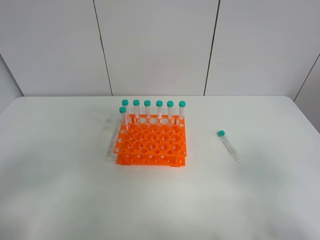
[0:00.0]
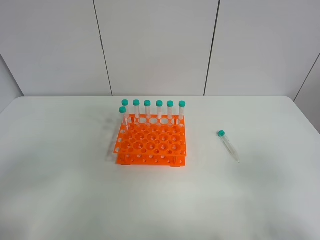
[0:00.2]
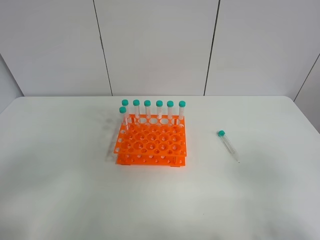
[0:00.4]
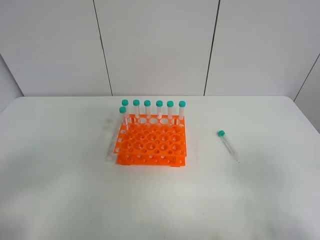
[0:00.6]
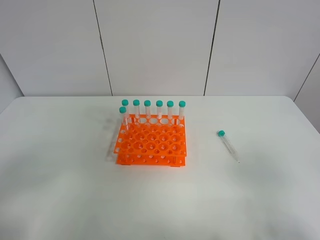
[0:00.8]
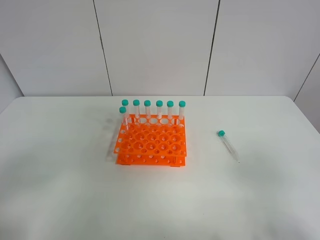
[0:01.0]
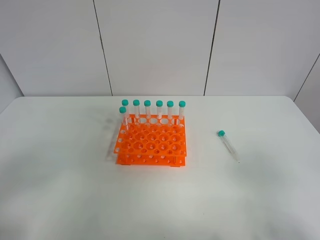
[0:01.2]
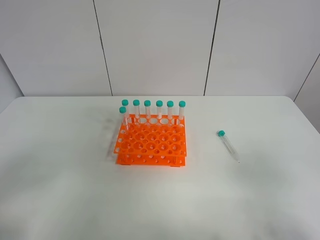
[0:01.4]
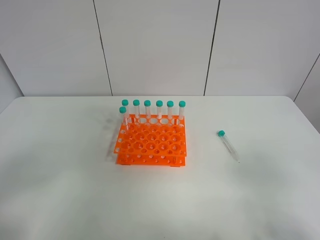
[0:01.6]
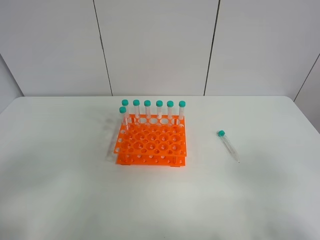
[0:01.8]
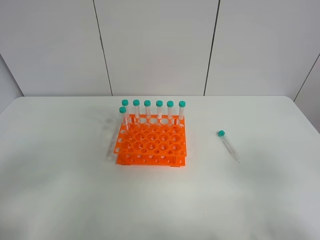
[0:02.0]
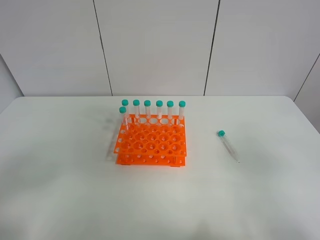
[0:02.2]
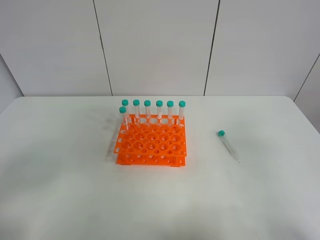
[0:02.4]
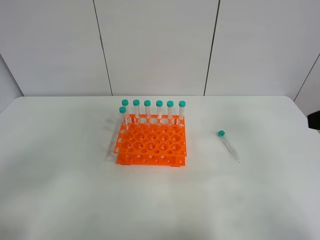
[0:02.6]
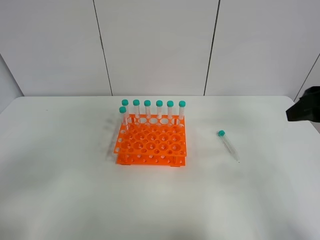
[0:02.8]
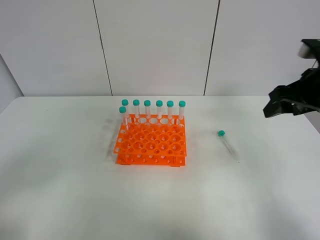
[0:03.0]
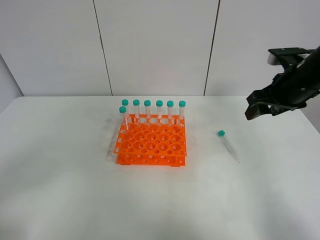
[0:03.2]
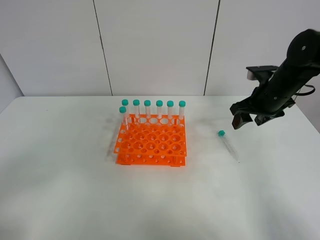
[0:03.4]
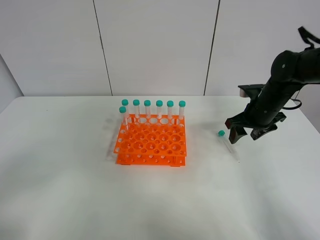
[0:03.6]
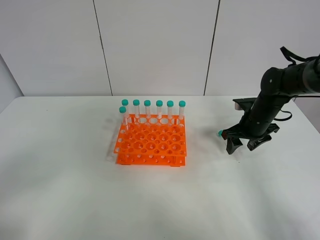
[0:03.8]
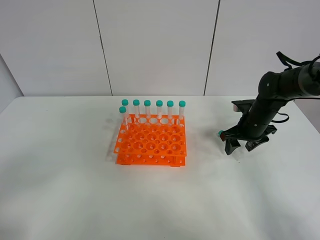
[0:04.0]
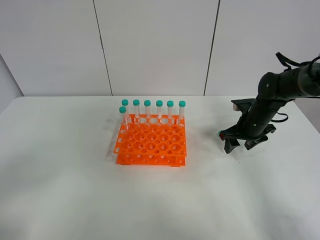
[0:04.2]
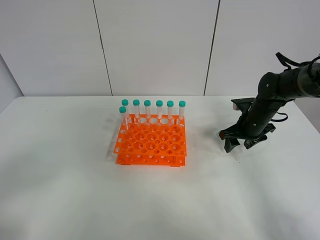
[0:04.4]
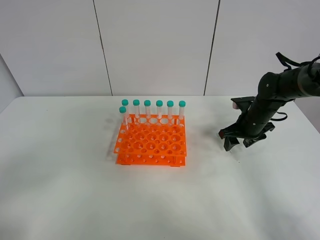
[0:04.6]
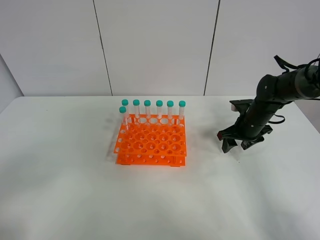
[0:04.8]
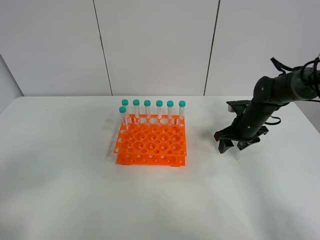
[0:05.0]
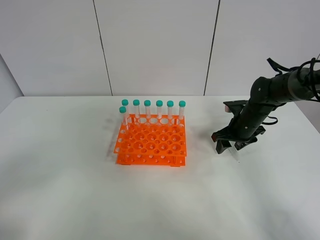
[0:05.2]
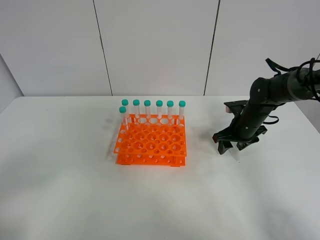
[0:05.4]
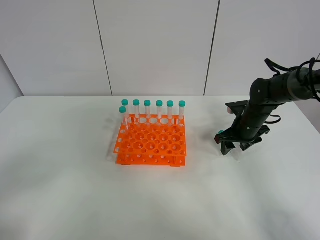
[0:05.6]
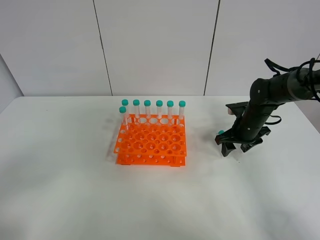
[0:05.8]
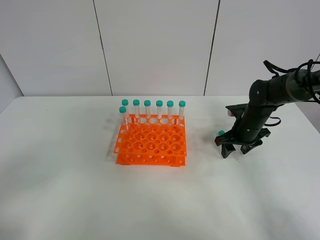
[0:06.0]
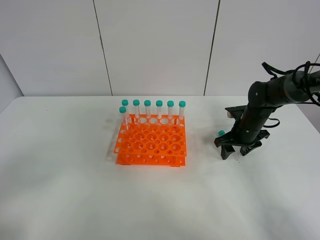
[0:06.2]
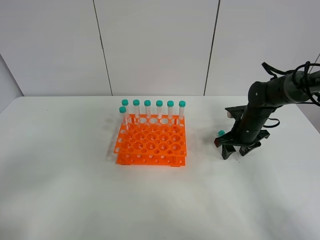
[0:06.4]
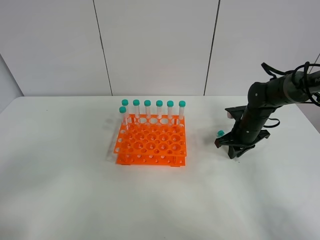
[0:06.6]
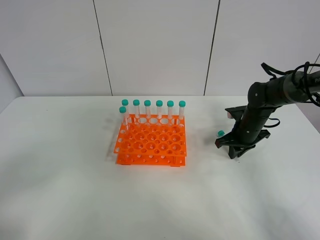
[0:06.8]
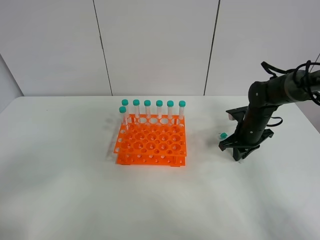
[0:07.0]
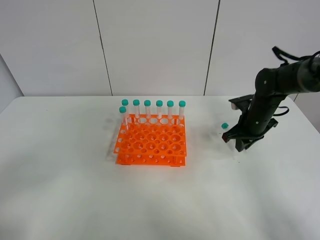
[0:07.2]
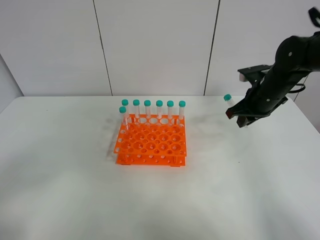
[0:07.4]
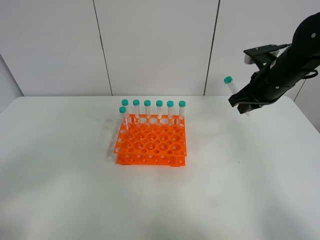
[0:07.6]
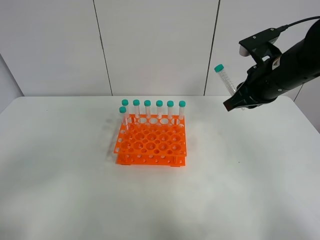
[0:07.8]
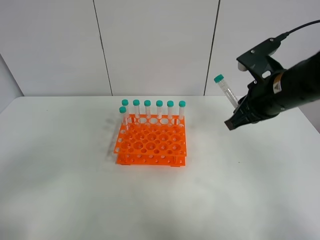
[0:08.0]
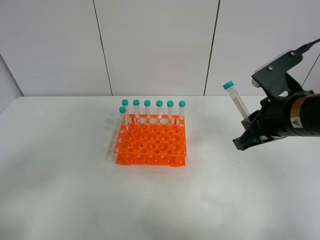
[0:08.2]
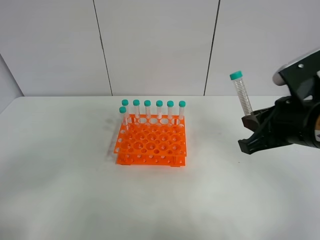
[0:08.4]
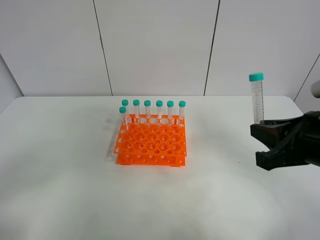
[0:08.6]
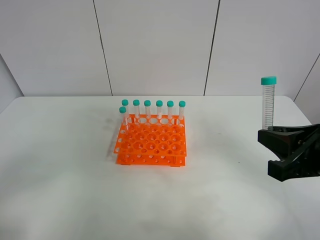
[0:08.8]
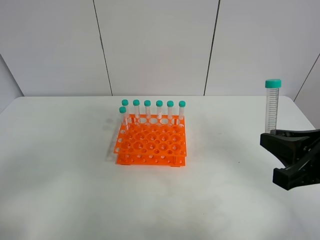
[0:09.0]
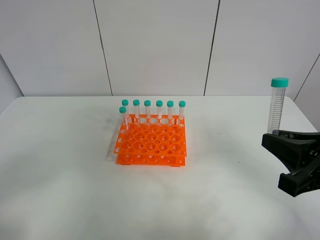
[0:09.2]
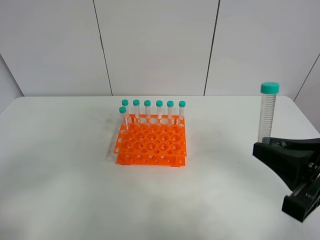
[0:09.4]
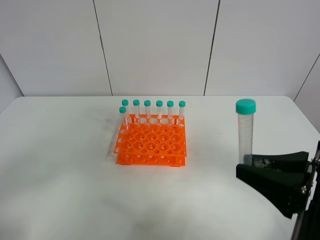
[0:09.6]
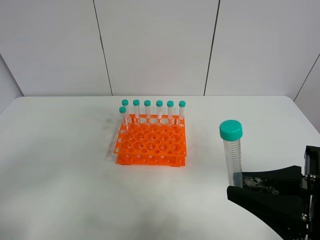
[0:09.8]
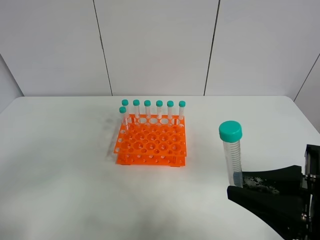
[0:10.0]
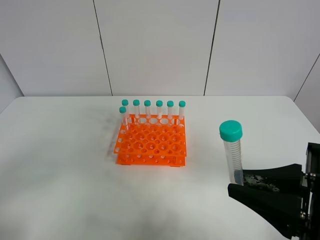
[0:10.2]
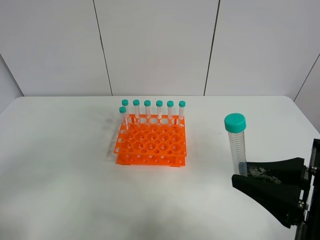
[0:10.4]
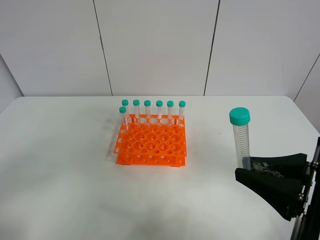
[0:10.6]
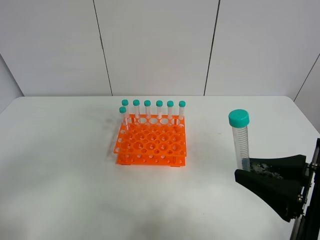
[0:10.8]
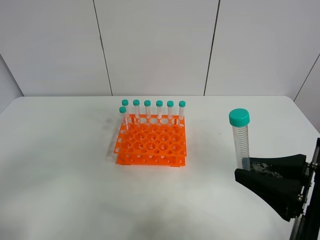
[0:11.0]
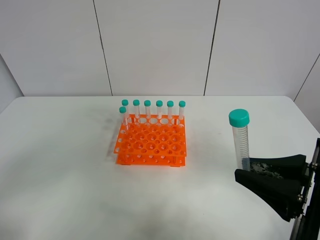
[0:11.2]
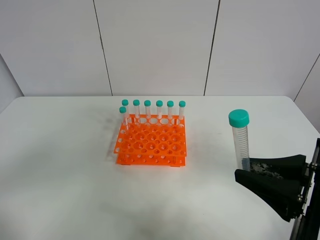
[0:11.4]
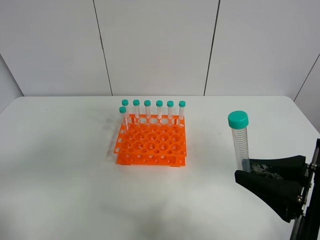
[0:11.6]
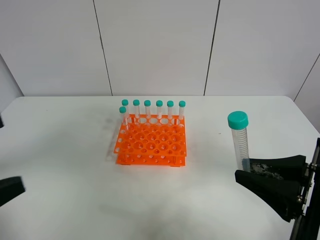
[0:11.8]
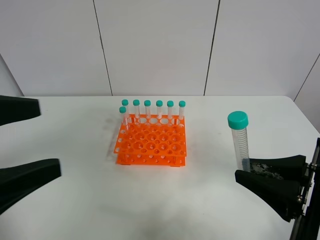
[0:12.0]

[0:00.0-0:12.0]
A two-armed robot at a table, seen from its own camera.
Task of the whole recording: Put the test tube on the table back onto the test tube rack.
Step, 0:00.0 to 0:06.8: Pick up the test tube with the right gripper.
0:00.0 to 0:01.6: Neither gripper changes place.
0:01.6 to 0:03.0: The right gripper shifts about 30 cm forward.
0:03.0 to 0:04.4: The right gripper moves downward and forward, roughly 20 cm.
0:04.4 to 0:06.0: The grippers move only a little.
0:06.0 to 0:07.6: The right gripper is displaced upward by roughly 15 cm, and closes.
0:07.6 to 0:09.0: The right gripper heads backward, covering approximately 25 cm.
0:09.0 to 0:10.4: The right gripper changes place by about 5 cm.
0:10.4 to 0:12.0: The left gripper moves forward, to the right and upward, some 15 cm.

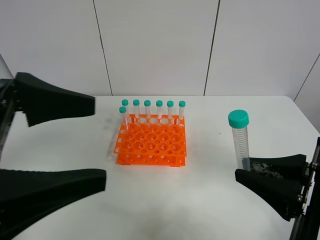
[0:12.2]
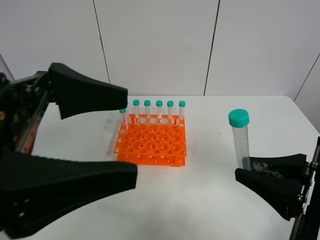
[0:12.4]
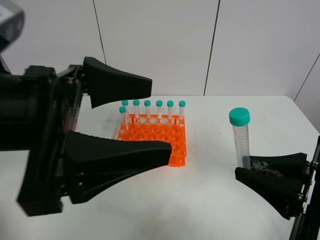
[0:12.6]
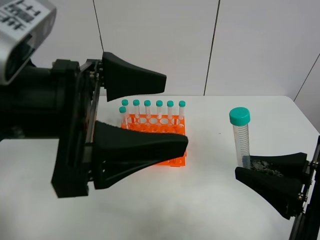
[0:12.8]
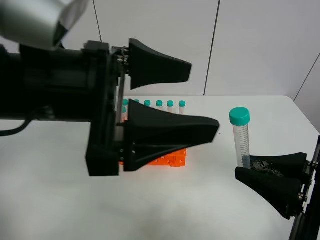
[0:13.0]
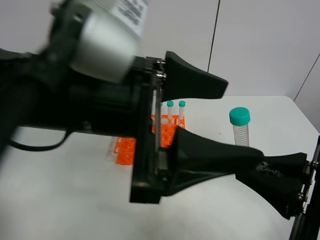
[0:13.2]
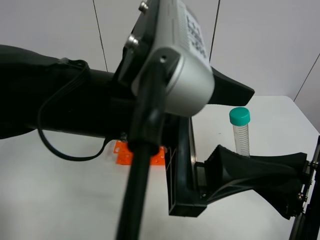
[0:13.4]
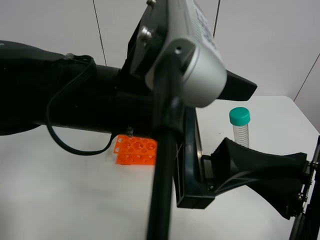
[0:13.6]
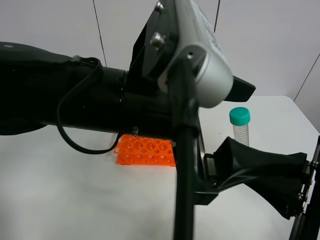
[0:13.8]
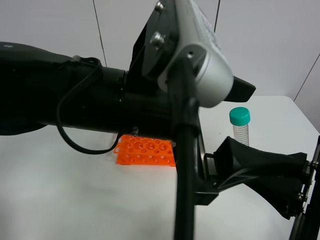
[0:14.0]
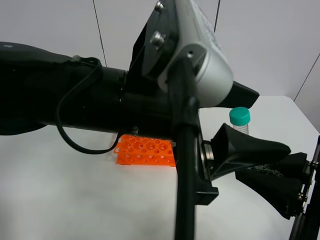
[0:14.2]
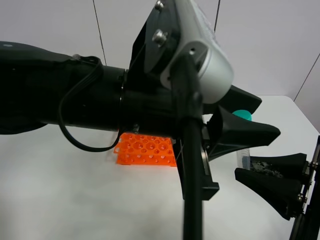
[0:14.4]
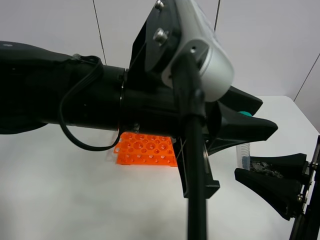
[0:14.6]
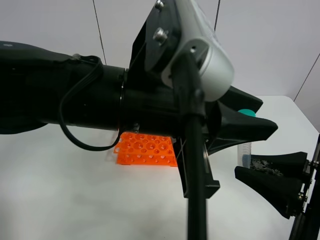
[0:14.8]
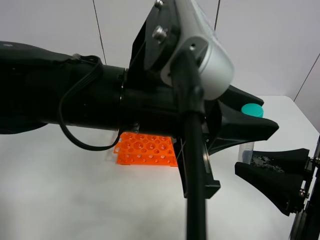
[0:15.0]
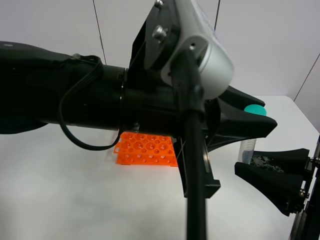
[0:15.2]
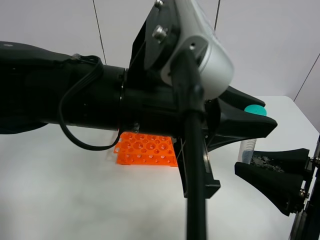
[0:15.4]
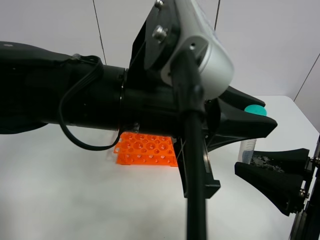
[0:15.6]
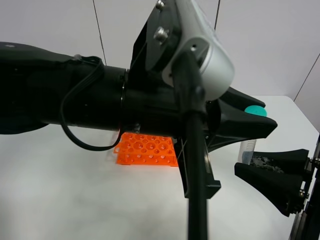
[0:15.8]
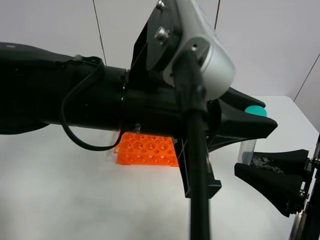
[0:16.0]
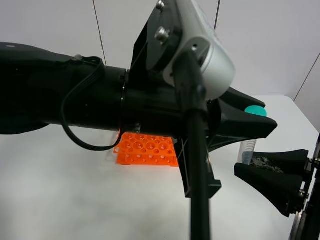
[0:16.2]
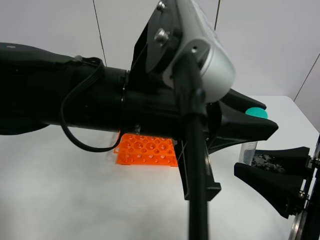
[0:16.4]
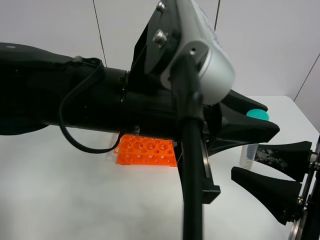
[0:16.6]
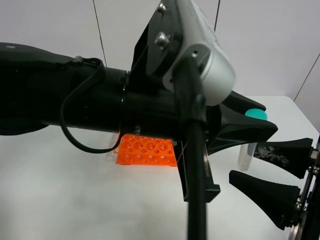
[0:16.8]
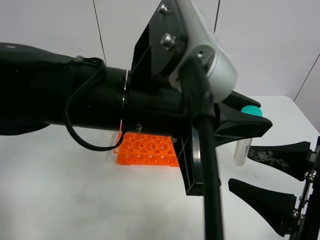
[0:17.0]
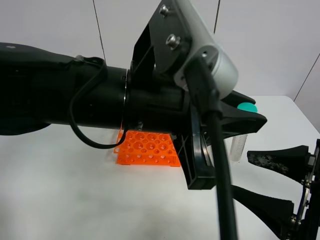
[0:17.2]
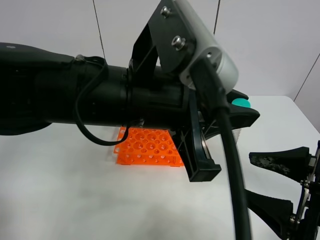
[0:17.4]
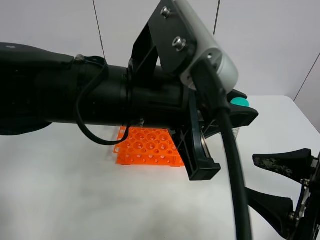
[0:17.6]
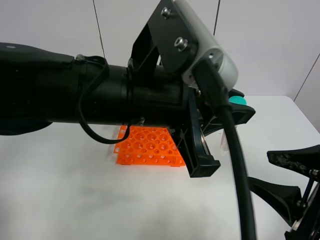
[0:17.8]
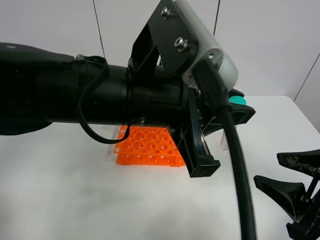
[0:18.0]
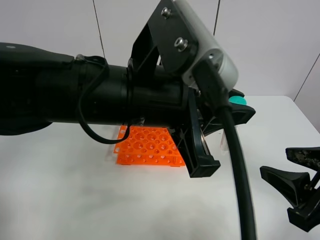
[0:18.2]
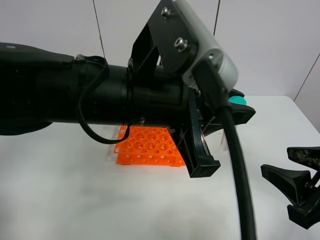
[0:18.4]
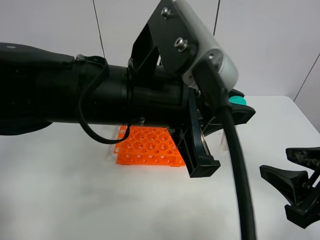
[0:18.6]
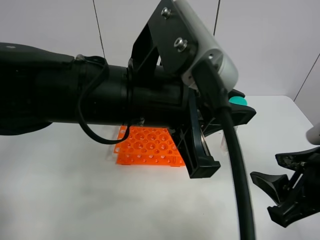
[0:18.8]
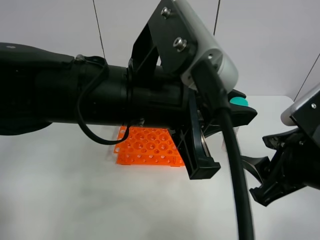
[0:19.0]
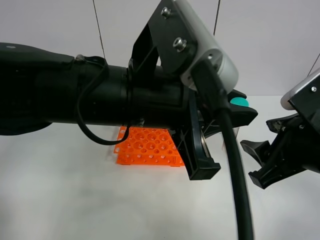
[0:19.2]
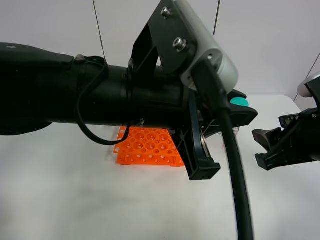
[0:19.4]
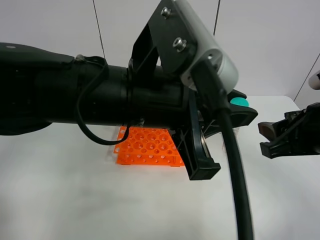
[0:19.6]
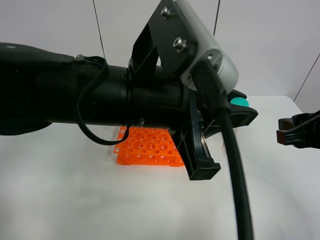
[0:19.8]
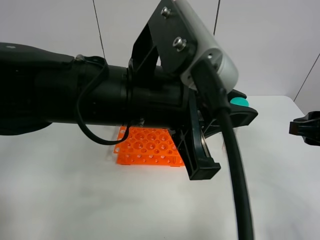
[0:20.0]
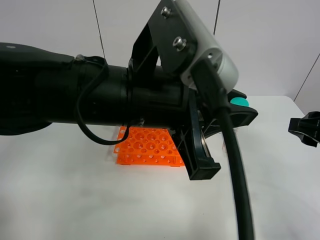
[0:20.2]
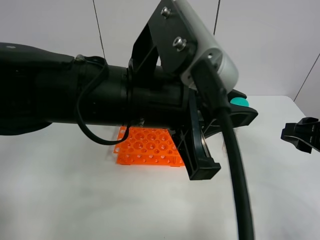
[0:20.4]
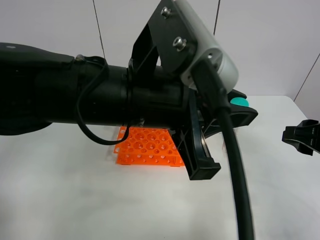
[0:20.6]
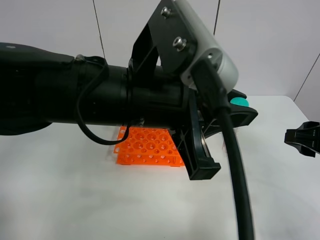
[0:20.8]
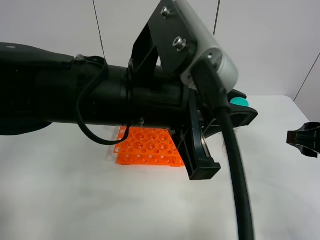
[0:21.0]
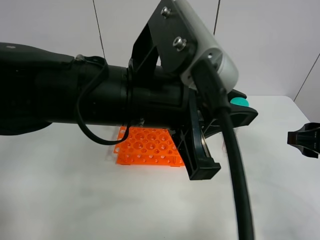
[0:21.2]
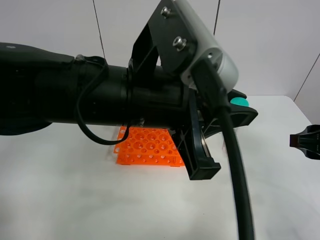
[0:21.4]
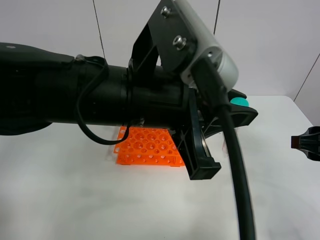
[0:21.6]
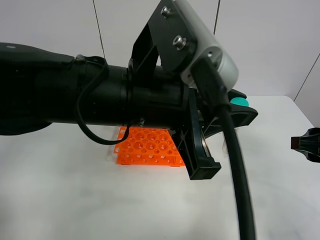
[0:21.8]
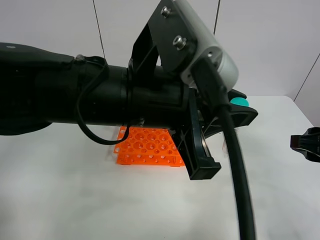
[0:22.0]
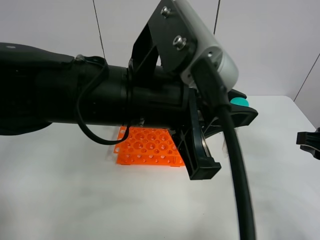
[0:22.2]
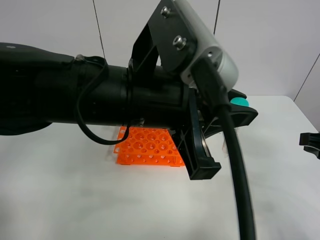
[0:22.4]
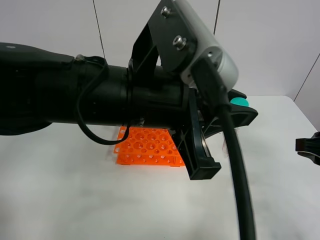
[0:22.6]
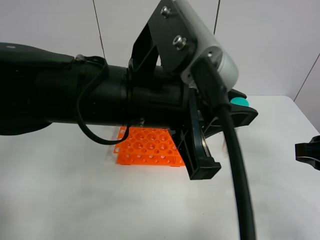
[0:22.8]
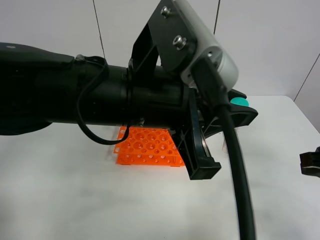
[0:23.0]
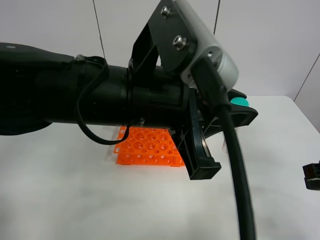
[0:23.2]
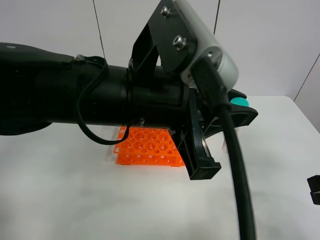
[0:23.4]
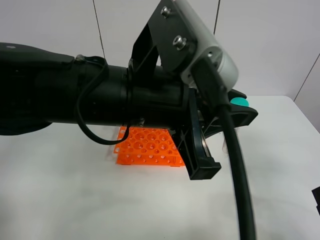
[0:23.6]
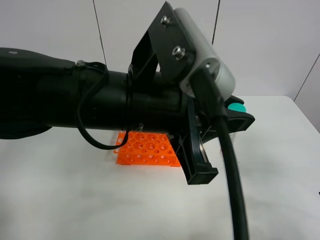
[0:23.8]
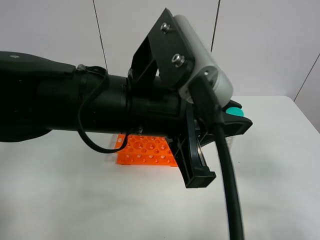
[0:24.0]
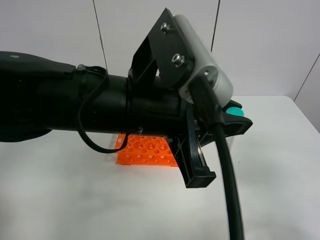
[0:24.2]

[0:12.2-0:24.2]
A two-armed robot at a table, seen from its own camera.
Task of the whole recording: Put the test tube on the table back onto the test tube rack.
Step, 0:12.2 to 0:16.6: Move the test tube from the right gripper to the left gripper.
0:12.2 to 0:13.8: The left gripper is displaced to the right and forward by about 15 cm.
0:13.8 to 0:15.2: The left gripper closes.
0:15.2 to 0:16.6: The right gripper opens its fingers.
0:18.2 to 0:19.8: The right gripper shifts approximately 10 cm forward.
0:21.2 to 0:22.6: The grippers stay close to where they were, moving slightly.
0:22.6 to 0:24.2: The right gripper heads backward, covering about 10 cm.
